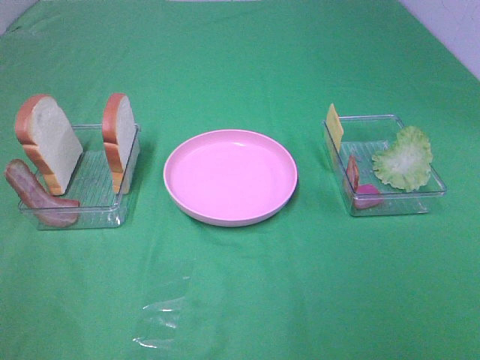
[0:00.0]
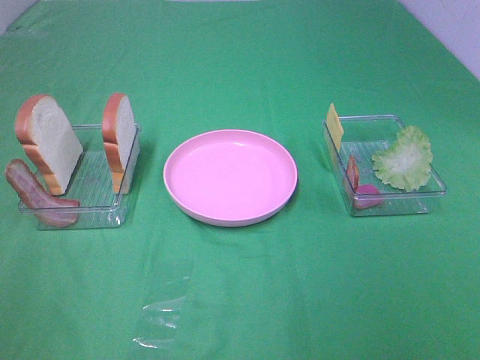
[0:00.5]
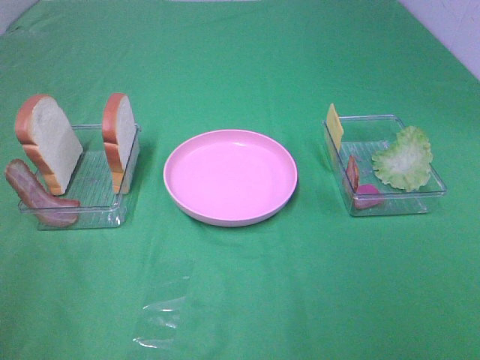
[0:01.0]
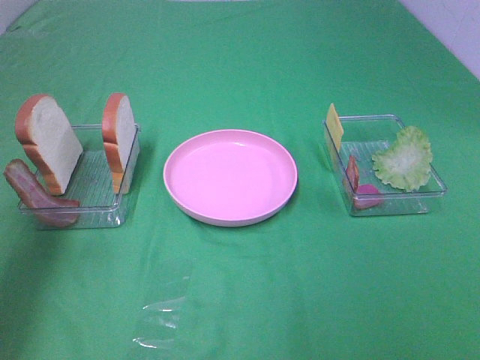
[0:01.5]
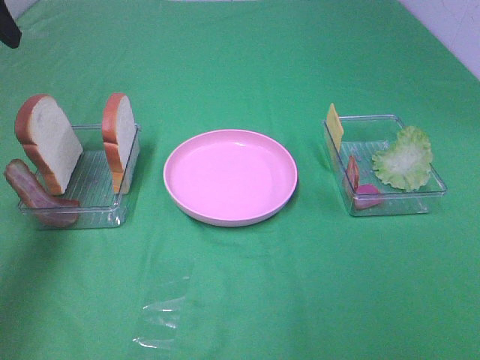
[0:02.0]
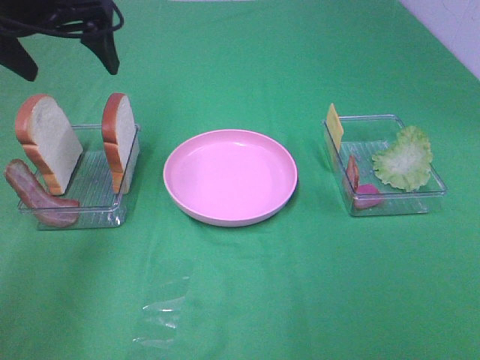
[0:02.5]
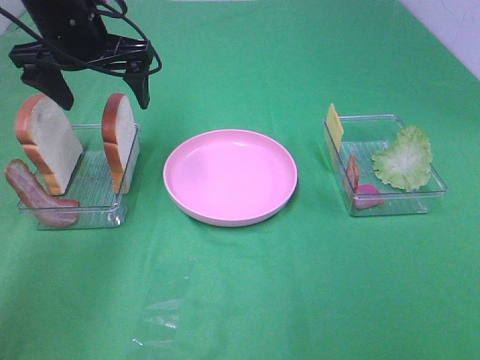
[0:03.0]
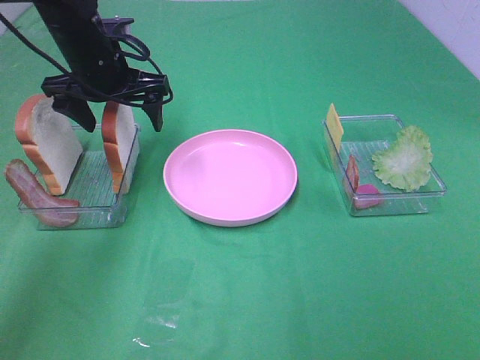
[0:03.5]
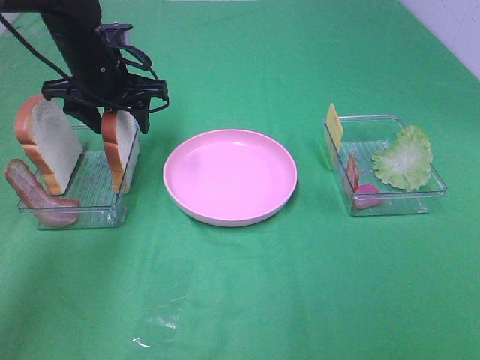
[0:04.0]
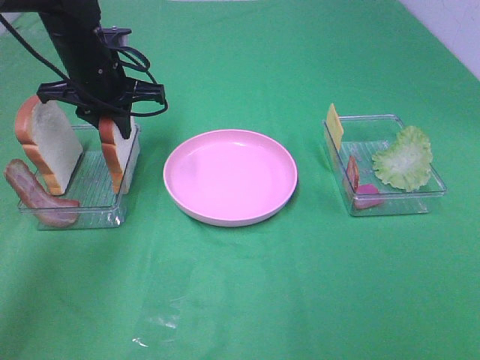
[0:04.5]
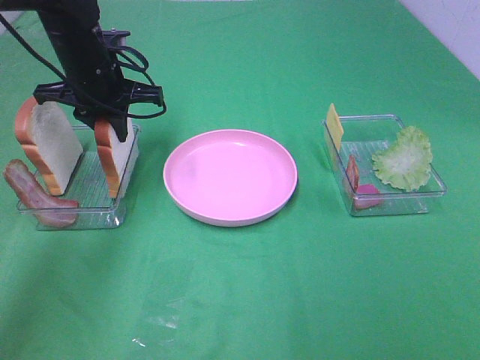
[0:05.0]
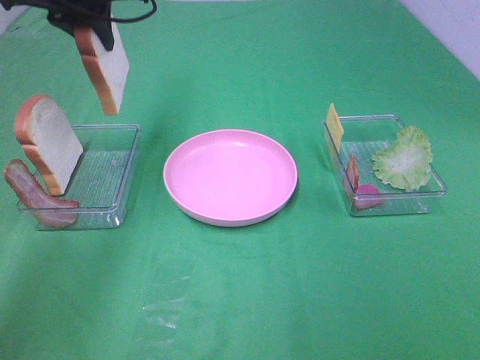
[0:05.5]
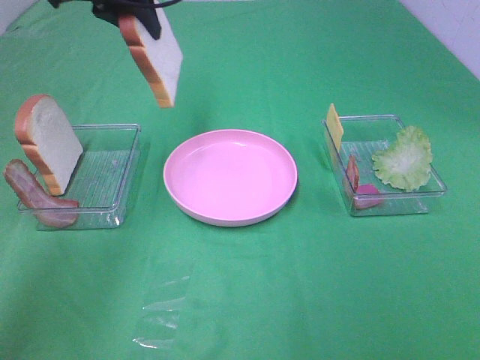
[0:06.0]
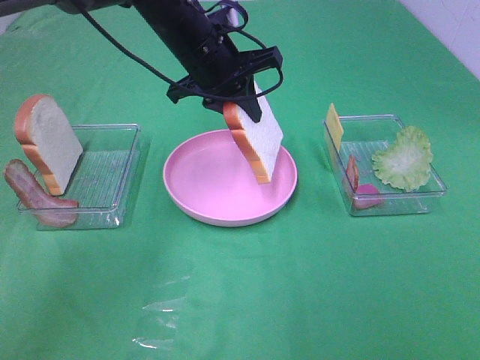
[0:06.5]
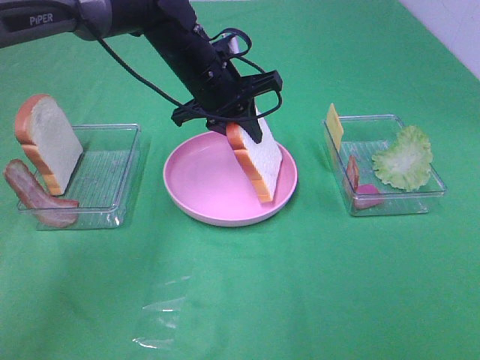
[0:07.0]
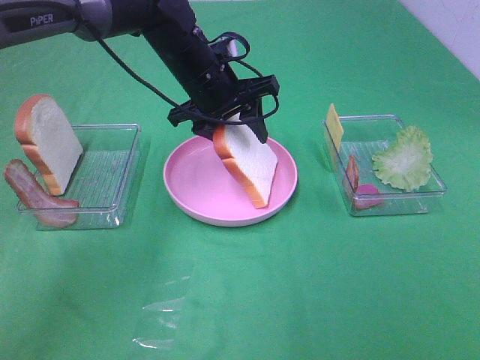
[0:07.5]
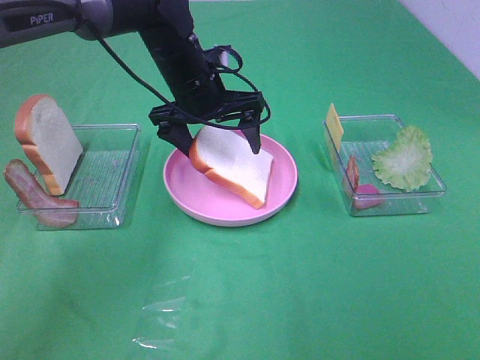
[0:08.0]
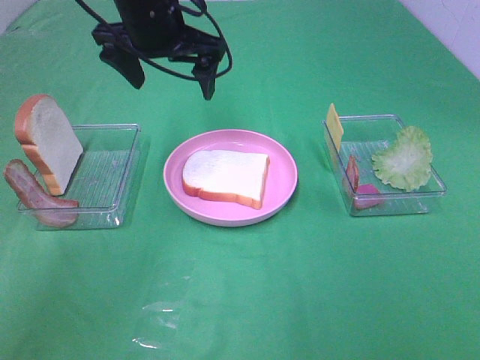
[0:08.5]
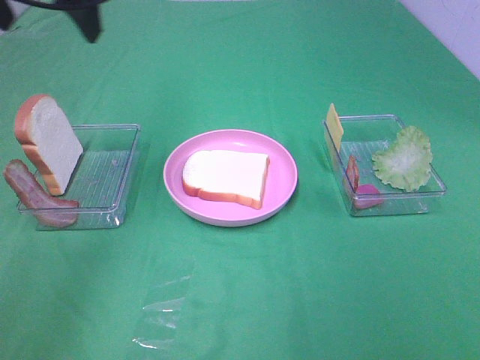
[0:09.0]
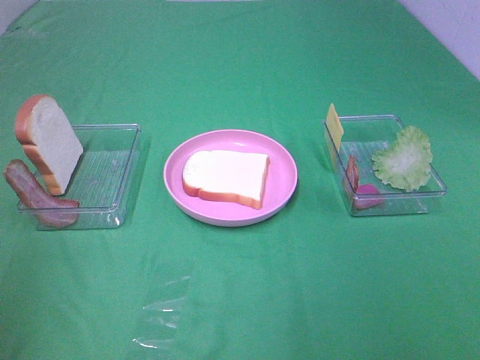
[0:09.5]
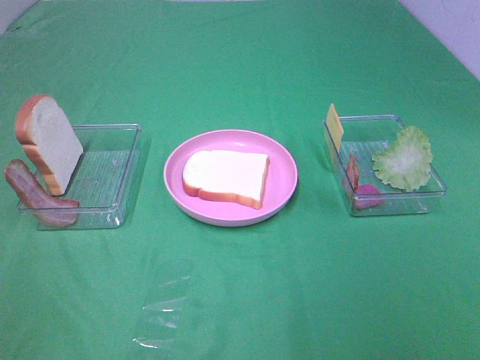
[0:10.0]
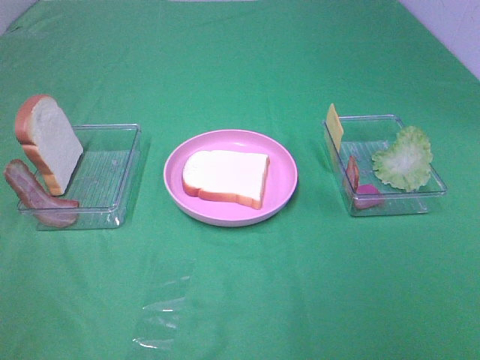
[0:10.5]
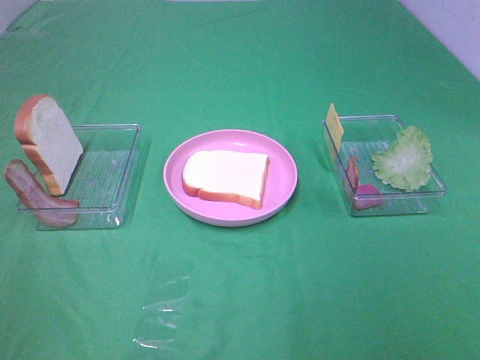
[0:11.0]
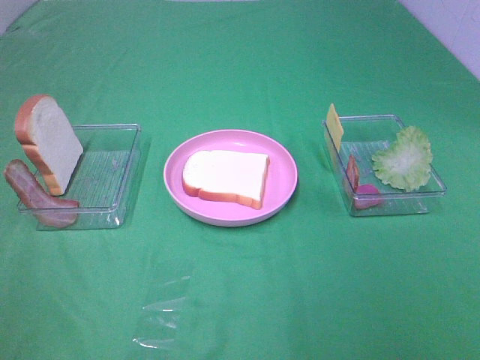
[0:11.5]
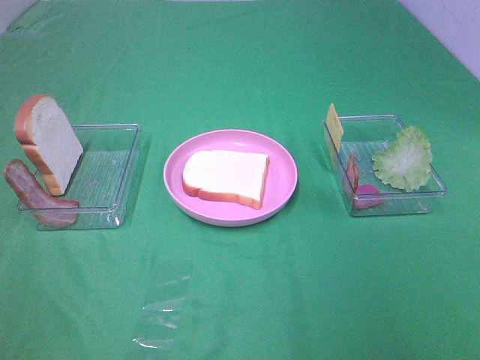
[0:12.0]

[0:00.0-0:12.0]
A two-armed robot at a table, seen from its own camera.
Task of the whole recording: Make sandwiches.
Step, 0:00.0 to 0:04.0: Left hand:grab the bread slice.
Step, 0:04.5 to 0:08.0: Left hand:place the bread slice on the plate.
0:00.0 to 0:02.0: The left gripper heads forward, covering about 35 cm.
0:02.0 to 0:04.0: The left gripper moves downward, to the right and forward, roughly 25 cm, and closes its fingers.
0:04.0 to 0:06.0: The left gripper heads upward, covering some 15 cm, and closes.
0:06.0 to 0:08.0: The left gripper shifts some 15 cm downward and to the right, and opens.
0:08.0 to 0:10.0: The left gripper shifts roughly 50 cm backward and to the left.

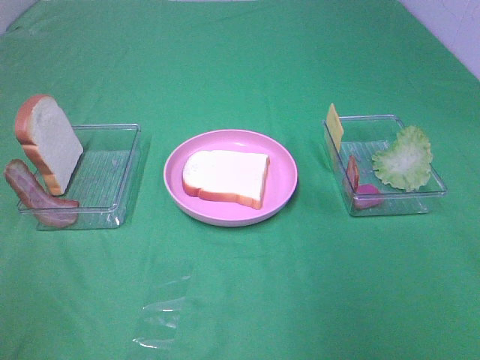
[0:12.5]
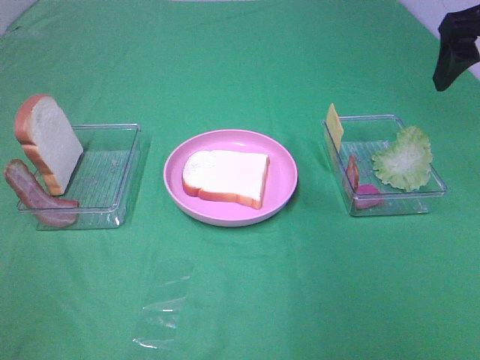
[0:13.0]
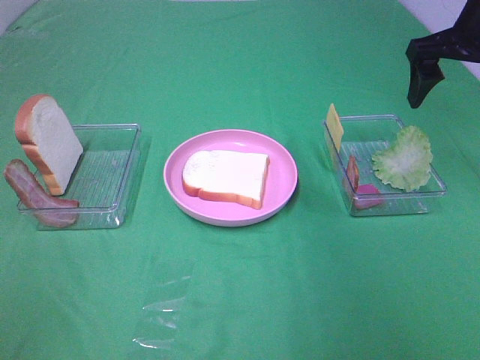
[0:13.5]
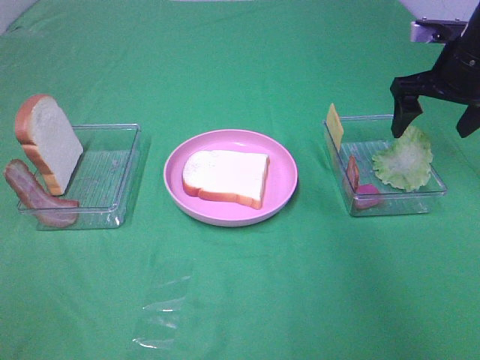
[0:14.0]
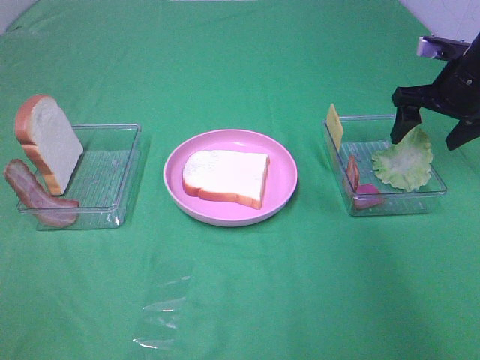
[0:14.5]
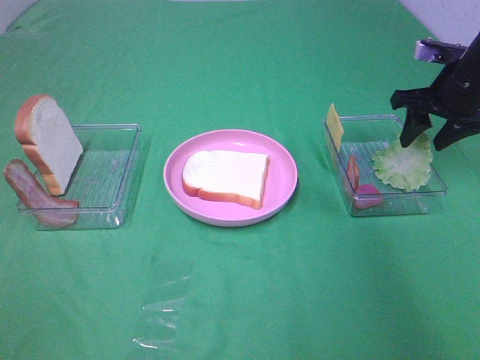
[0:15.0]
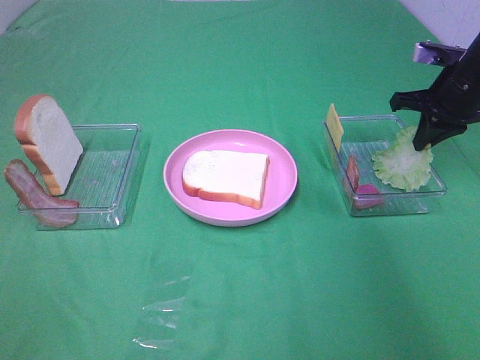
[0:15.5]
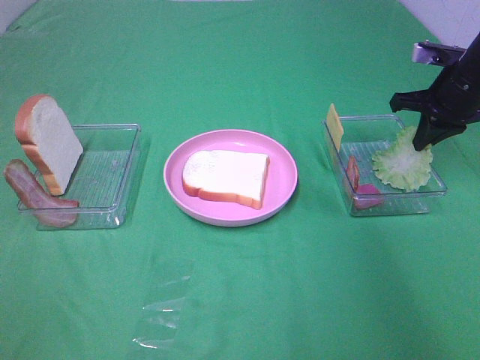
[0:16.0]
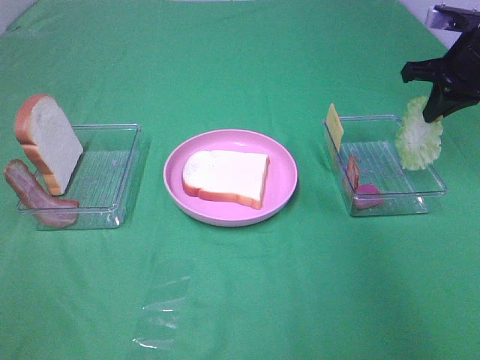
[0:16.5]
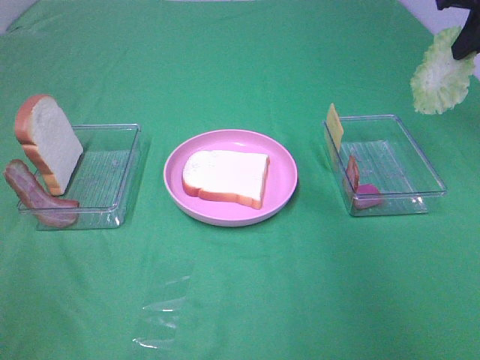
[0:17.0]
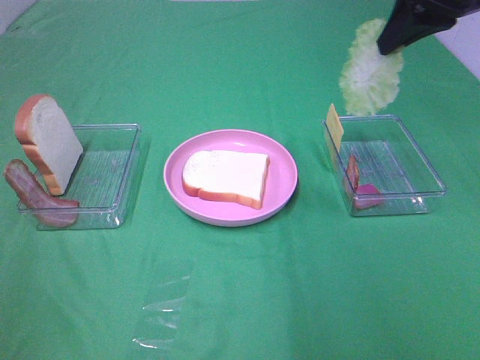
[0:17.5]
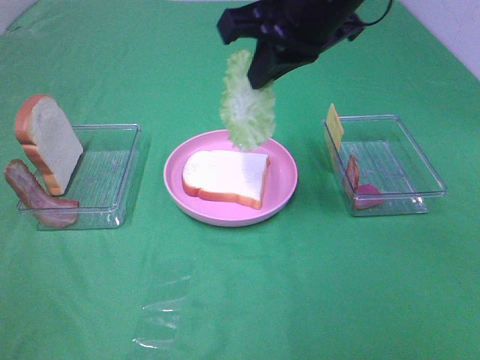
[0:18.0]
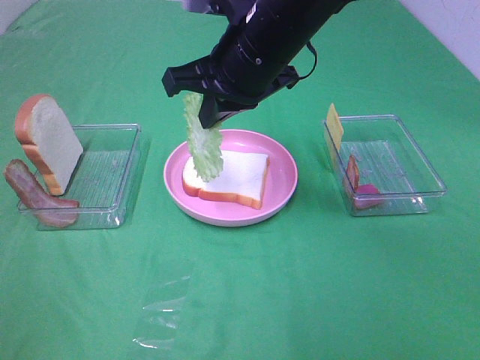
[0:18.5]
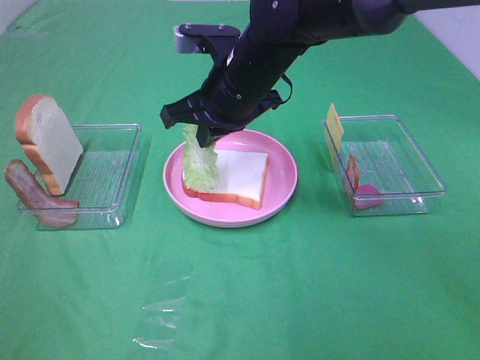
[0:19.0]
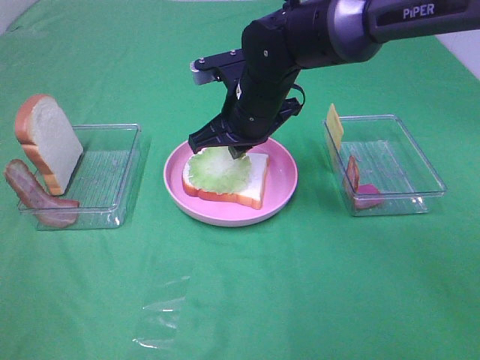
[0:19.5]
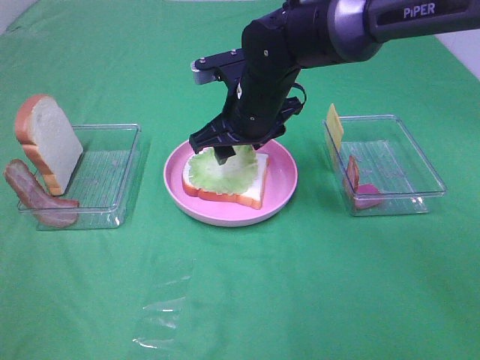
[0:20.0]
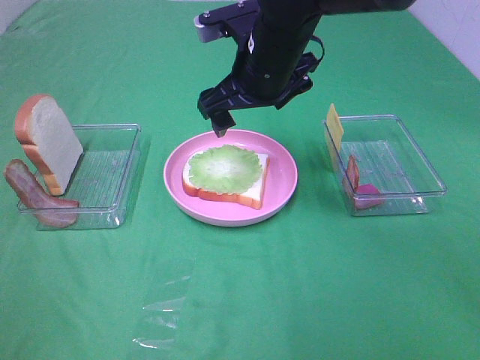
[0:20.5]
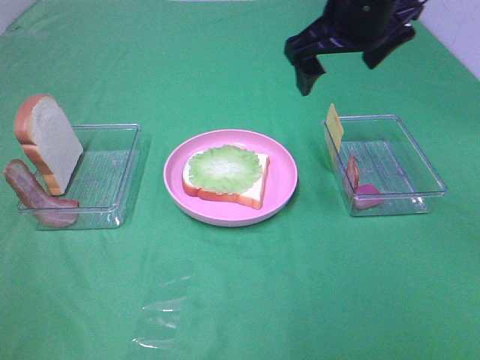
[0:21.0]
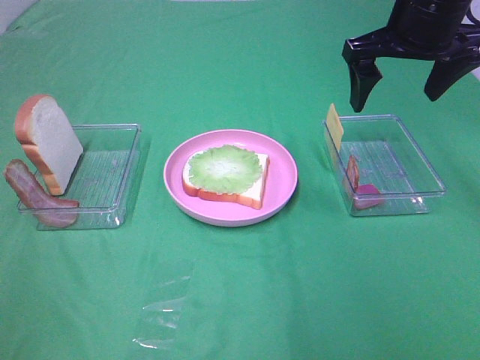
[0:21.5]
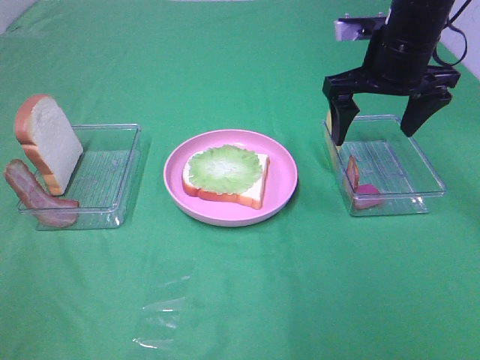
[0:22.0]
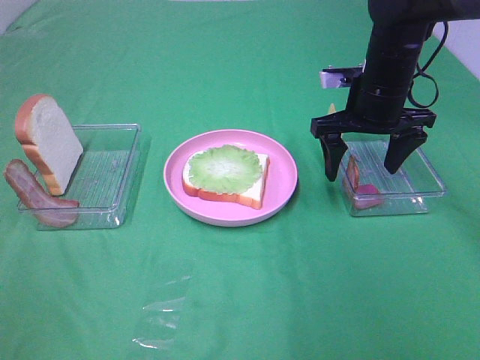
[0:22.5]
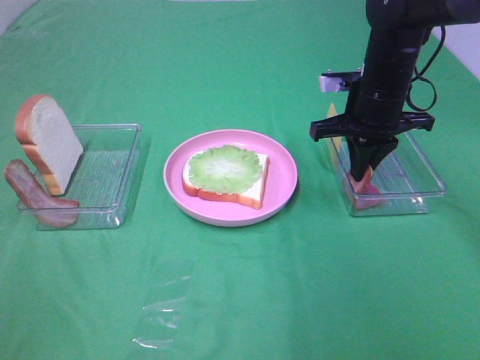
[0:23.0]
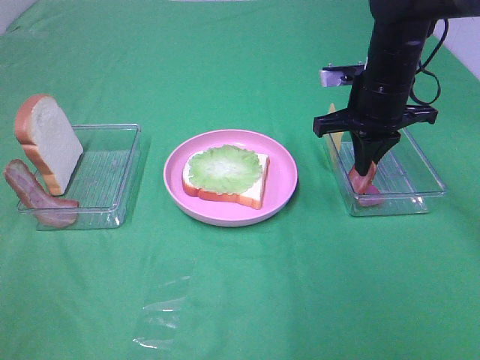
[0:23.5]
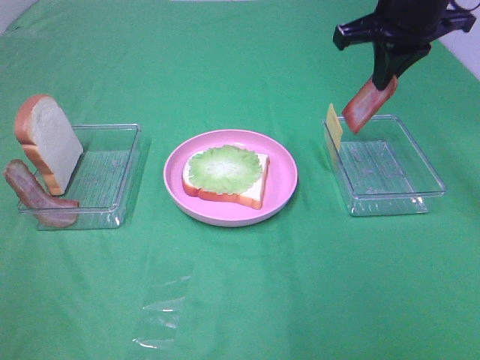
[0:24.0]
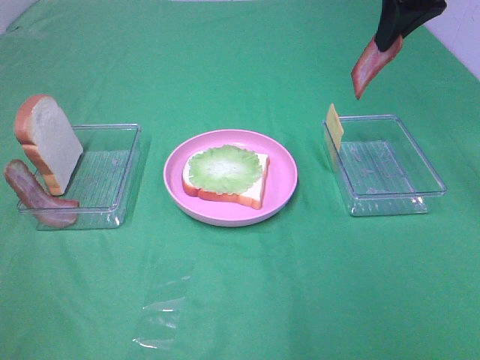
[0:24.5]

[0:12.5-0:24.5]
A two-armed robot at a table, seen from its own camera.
Task of the whole recording: Make sandwiches.
Step, 0:12.5 to 0:15.5: Right hand:grab the lettuce slice.
Step, 0:16.0 to 0:20.0: Right hand:place the lettuce slice on the bread slice.
Step, 0:20.5 to 0:23.0: Right hand:grab the bacon.
0:12.5 to 0:14.5: The right gripper is displaced forward and downward by approximately 25 cm.
0:14.5 to 0:16.5: The right gripper closes up.
0:16.5 to 0:18.5: The right gripper moves to the left, about 30 cm.
0:18.5 to 0:20.5: The right gripper goes downward and returns, about 10 cm each way, and opens up.
0:20.5 to 0:22.5: The right gripper travels to the right by about 15 cm.
0:22.5 to 0:24.5: The right gripper heads upward, covering some 15 cm, and closes up.

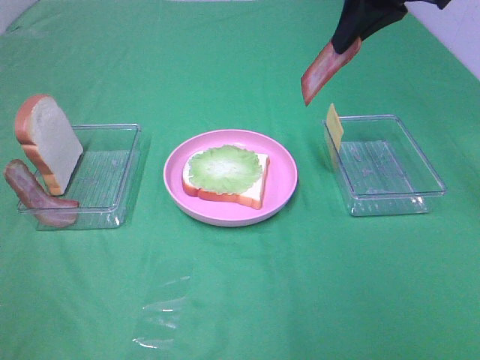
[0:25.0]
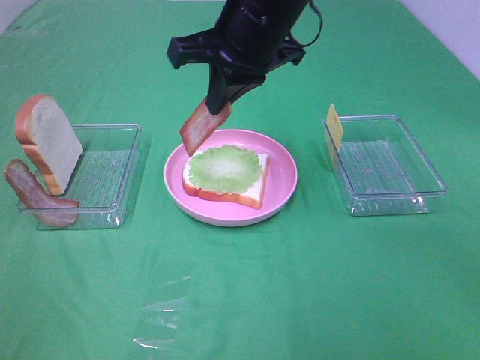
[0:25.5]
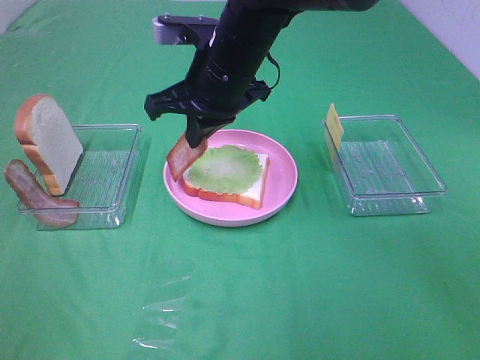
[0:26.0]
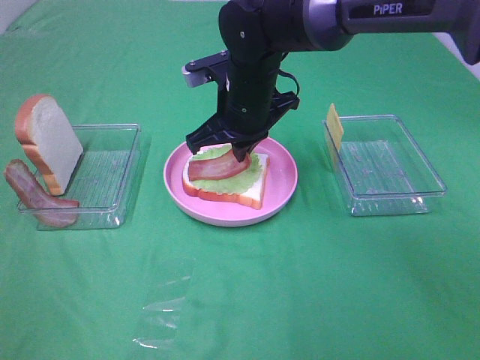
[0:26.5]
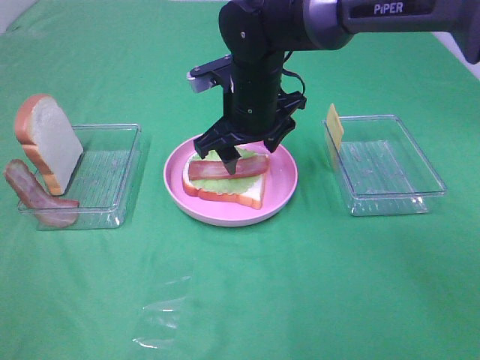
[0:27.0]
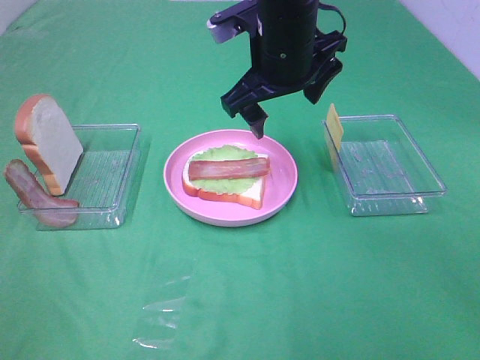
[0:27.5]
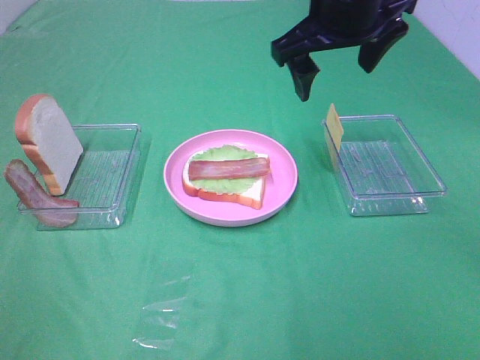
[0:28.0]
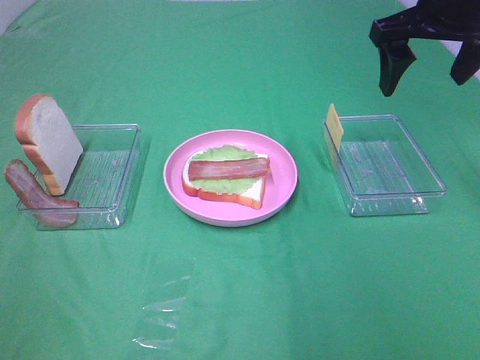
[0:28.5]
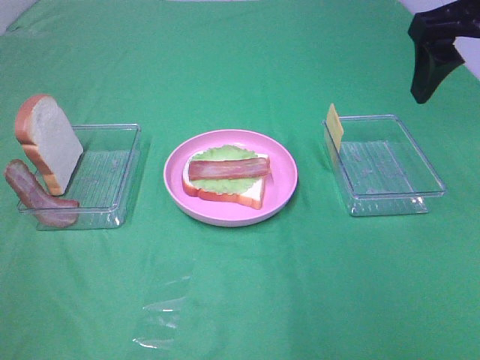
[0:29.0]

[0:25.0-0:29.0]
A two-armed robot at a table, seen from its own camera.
Task of the whole recording: Make sandwiches.
Step, 0:25.0 to 0:27.0: Right hand:place bacon on lettuce slice.
0:25.0 to 0:27.0: The right gripper heads downward and to the left, covering roughly 20 cm, and opens up.
0:27.0 to 0:29.0: The right gripper goes approximately 25 cm to the right and upward.
